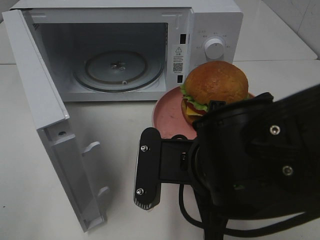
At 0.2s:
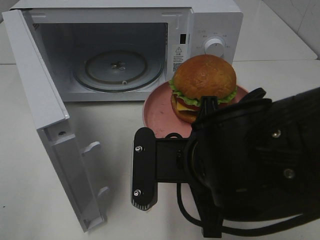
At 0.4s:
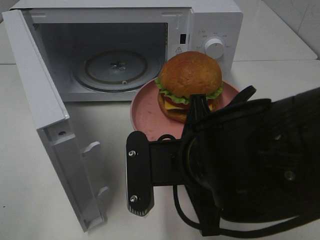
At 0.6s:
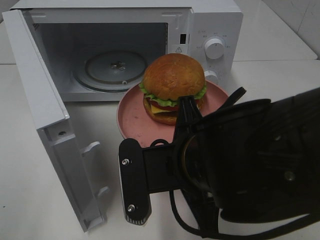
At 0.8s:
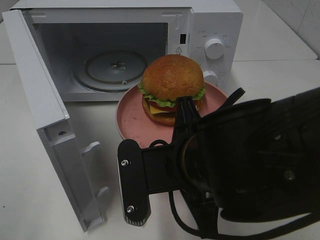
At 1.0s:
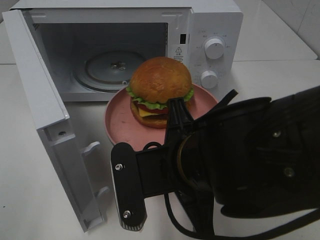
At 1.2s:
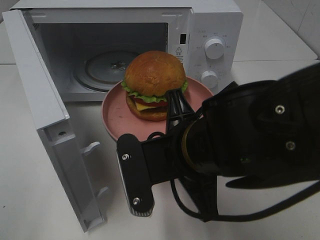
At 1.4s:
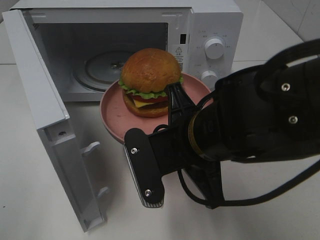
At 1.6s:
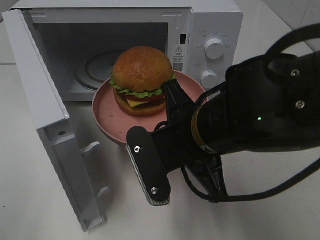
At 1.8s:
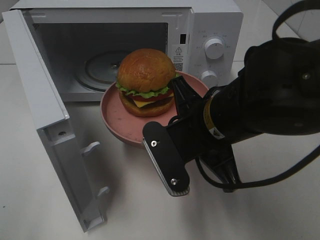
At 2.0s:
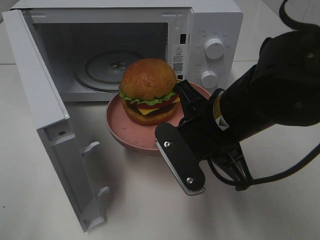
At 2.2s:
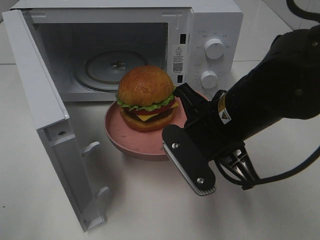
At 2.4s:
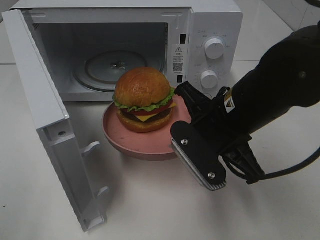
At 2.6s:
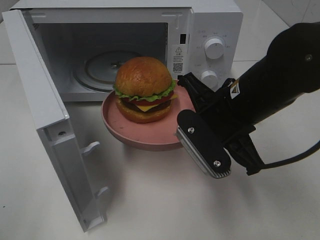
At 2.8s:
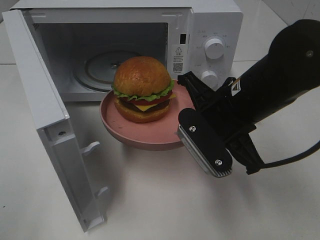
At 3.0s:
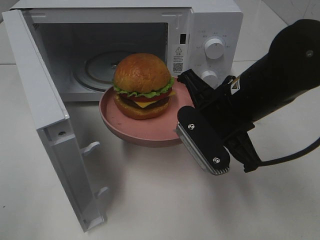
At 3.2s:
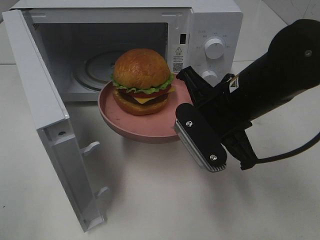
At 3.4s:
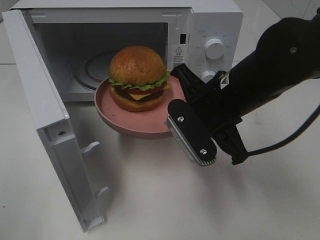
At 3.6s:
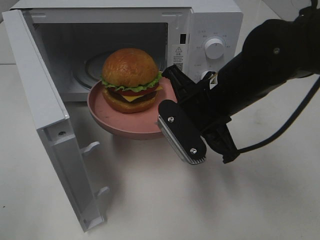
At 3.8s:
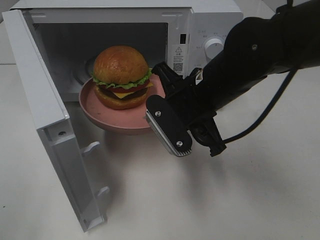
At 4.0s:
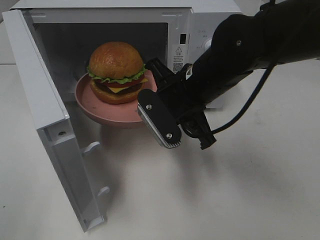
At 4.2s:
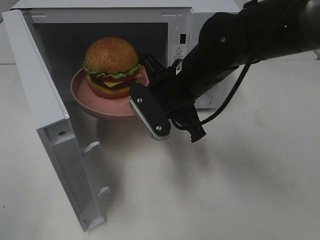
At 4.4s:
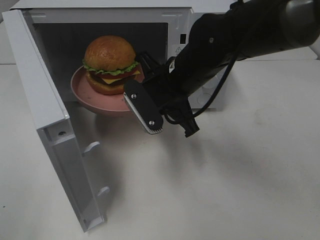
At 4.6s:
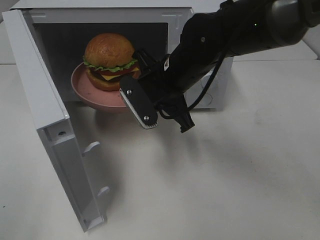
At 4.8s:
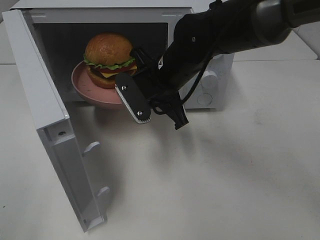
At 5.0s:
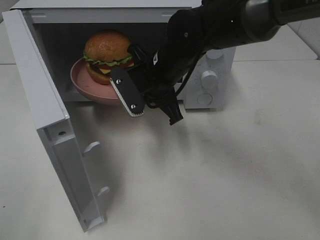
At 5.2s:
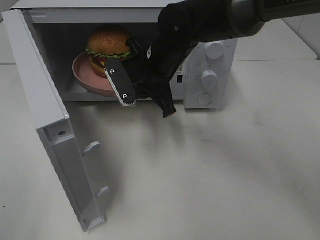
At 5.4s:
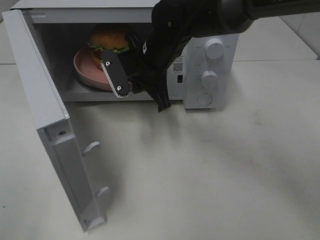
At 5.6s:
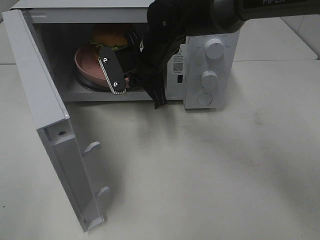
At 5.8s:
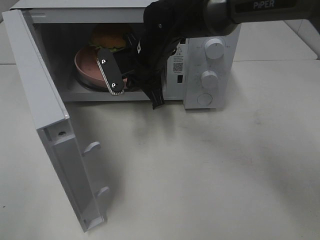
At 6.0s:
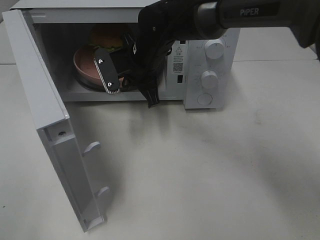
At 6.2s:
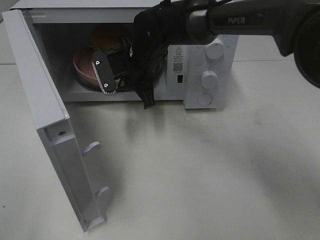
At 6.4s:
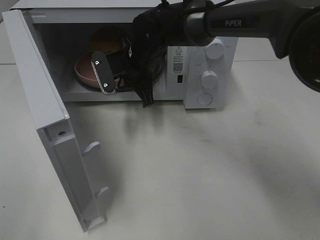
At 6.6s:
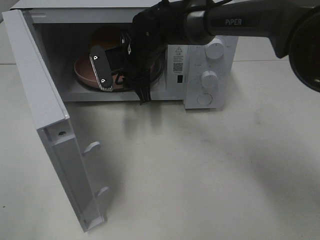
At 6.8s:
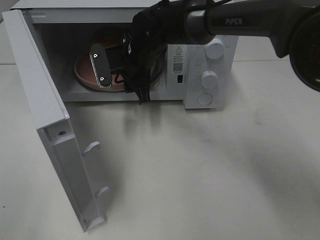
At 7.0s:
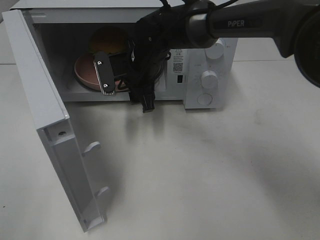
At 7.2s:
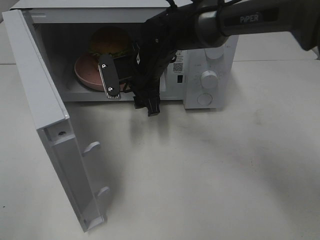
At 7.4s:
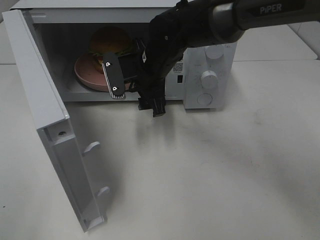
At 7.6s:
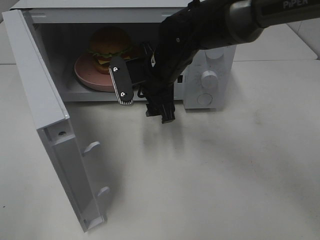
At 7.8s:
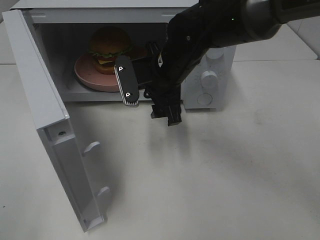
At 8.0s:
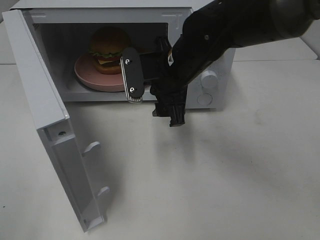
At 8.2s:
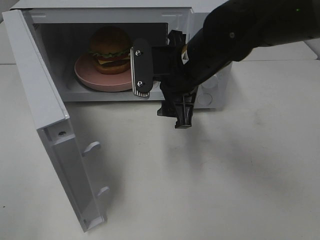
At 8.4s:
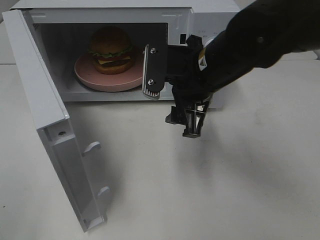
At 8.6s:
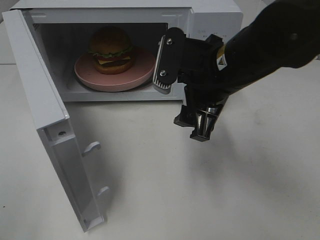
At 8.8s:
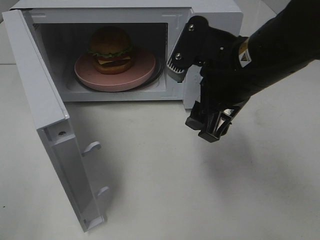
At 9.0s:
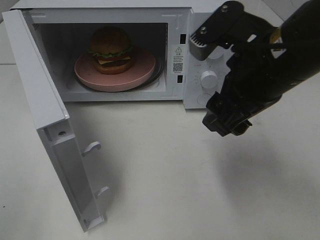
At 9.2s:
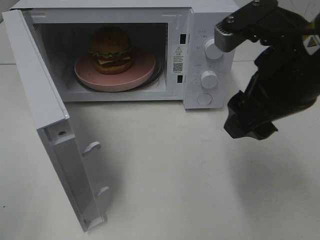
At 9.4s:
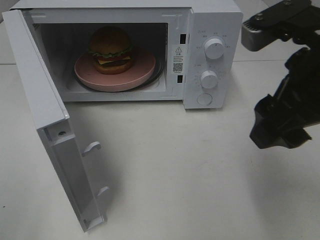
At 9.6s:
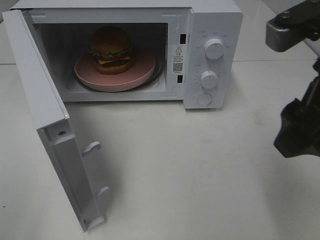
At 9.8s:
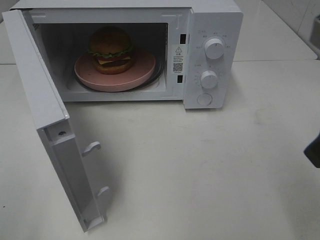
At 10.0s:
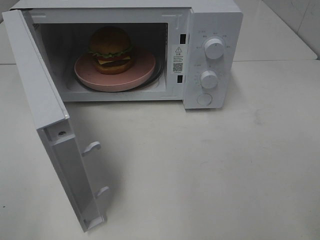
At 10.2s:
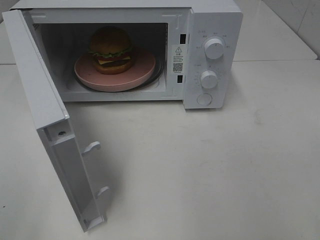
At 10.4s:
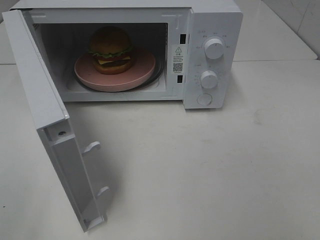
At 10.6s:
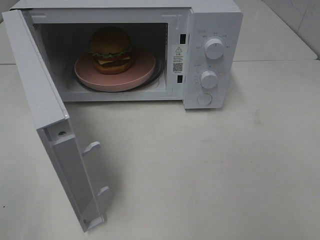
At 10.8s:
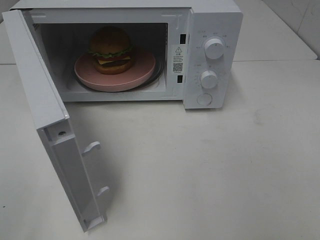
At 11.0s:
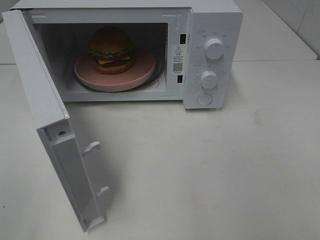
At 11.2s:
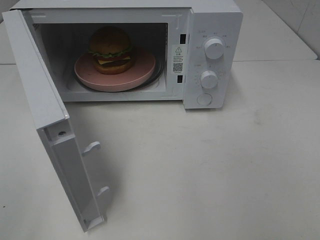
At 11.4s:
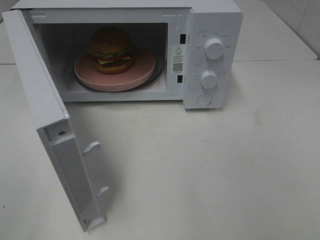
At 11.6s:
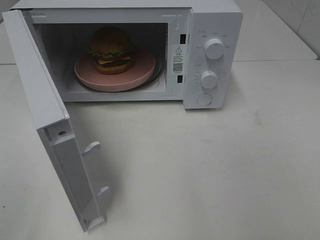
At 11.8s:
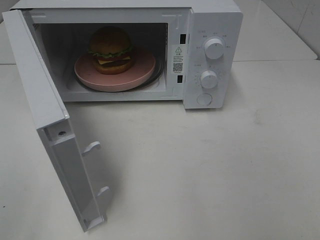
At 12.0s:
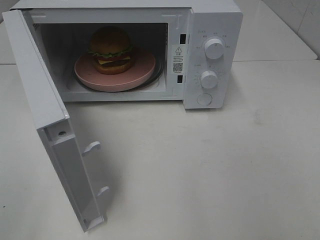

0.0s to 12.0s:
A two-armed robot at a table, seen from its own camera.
Task of the whole recording: Heat the burger.
Step, 0.0s to 6.8s: Right hand: place the plate in the microwave.
1.6s to 3.0s: The right gripper shifts approximately 5 cm forward and to the right.
3.0s to 4.4s: The right gripper travels forward and to the left by approximately 10 cm.
4.4s to 6.0s: The right gripper shifts roughly 10 cm forward and to the left.
6.0s to 7.6s: The right gripper moves approximately 5 cm, and opens up.
7.6s to 9.0s: The right gripper heads backward, to the right and upward, covering approximately 20 cm.
9.0s to 10.4s: The right gripper heads backward and to the right, covering approximately 25 cm.

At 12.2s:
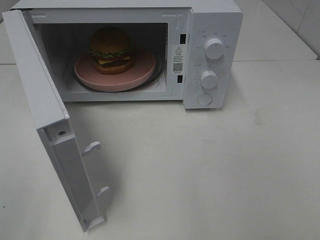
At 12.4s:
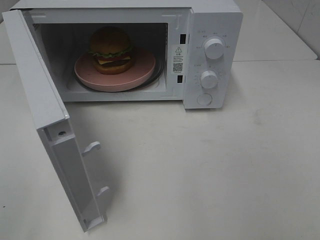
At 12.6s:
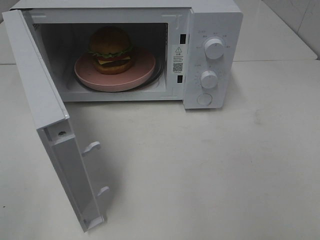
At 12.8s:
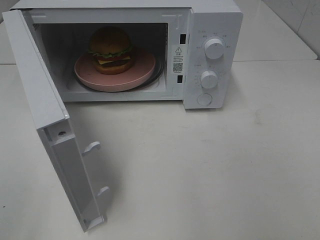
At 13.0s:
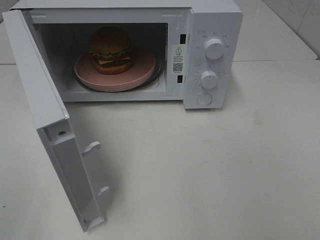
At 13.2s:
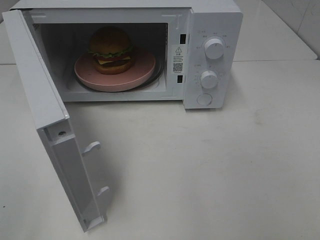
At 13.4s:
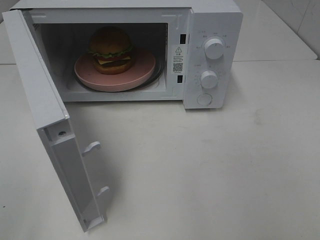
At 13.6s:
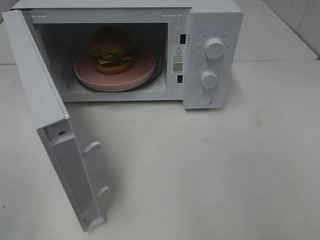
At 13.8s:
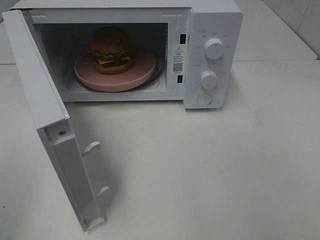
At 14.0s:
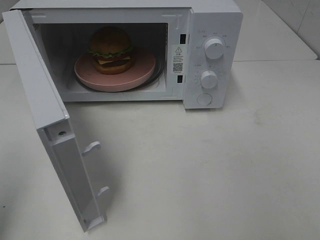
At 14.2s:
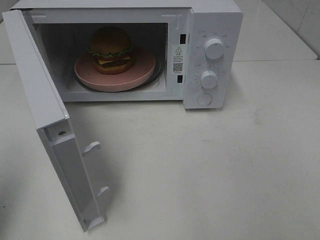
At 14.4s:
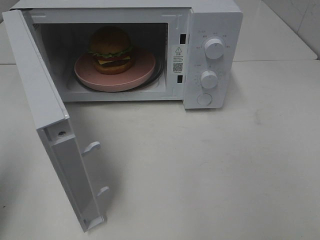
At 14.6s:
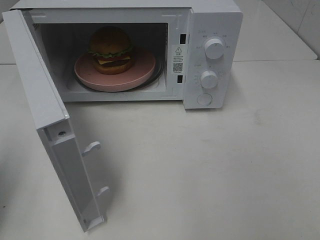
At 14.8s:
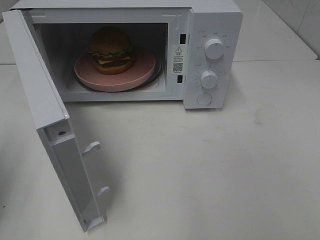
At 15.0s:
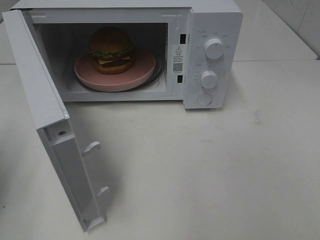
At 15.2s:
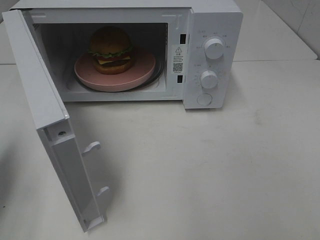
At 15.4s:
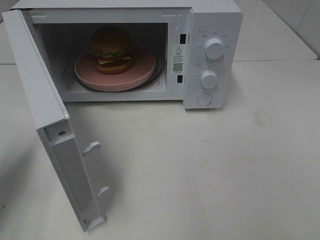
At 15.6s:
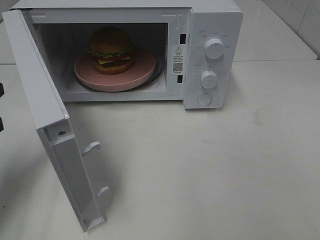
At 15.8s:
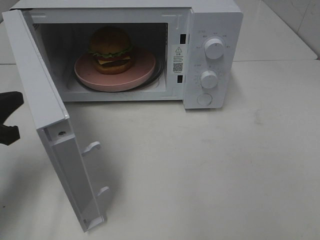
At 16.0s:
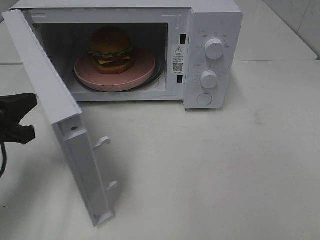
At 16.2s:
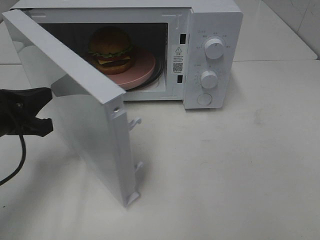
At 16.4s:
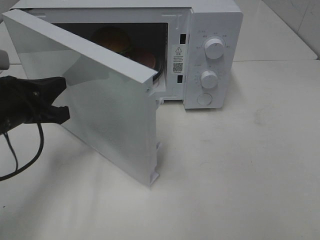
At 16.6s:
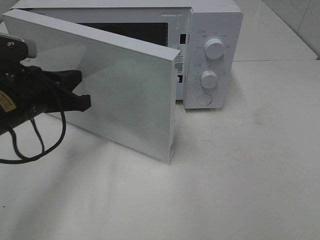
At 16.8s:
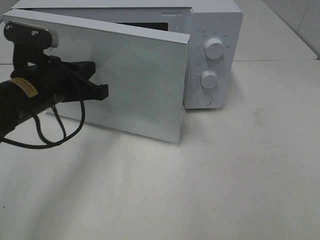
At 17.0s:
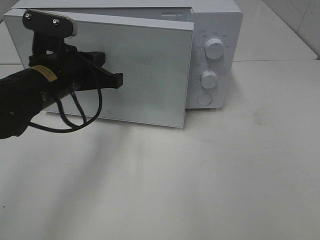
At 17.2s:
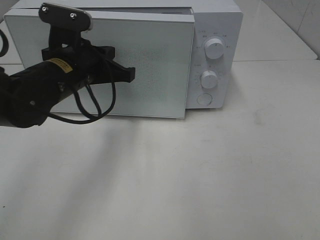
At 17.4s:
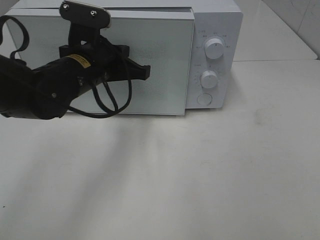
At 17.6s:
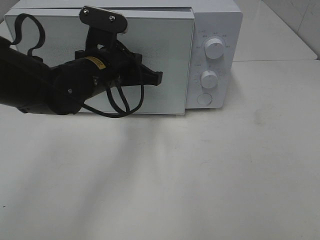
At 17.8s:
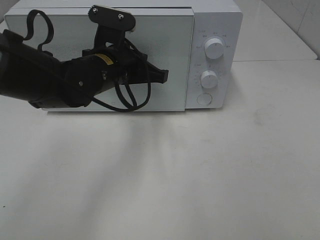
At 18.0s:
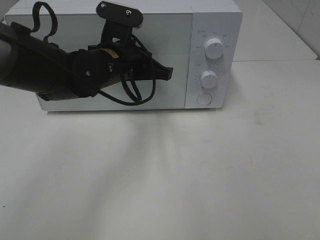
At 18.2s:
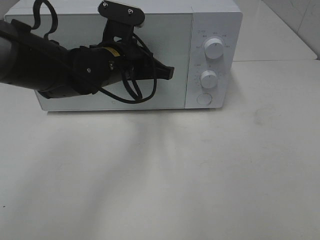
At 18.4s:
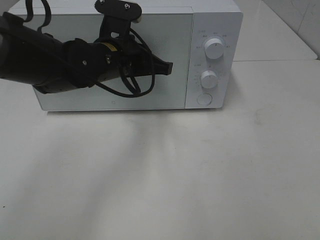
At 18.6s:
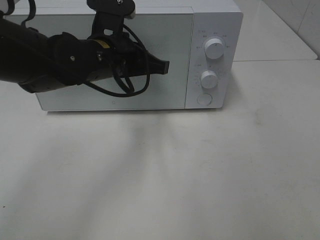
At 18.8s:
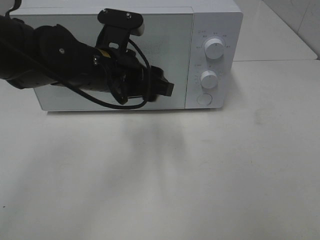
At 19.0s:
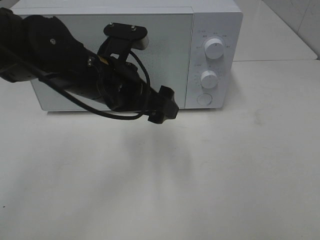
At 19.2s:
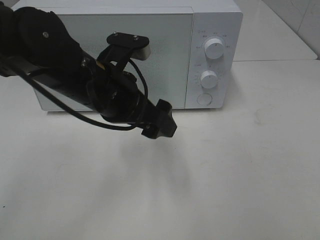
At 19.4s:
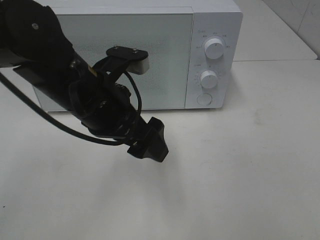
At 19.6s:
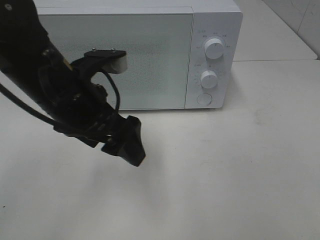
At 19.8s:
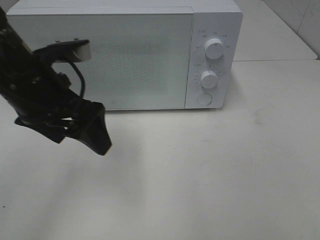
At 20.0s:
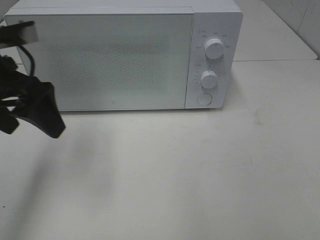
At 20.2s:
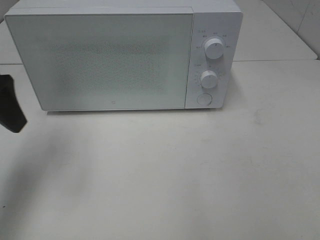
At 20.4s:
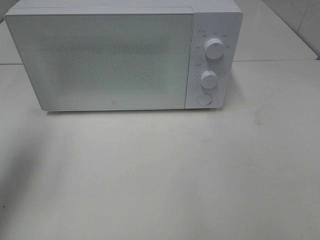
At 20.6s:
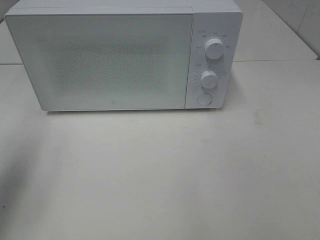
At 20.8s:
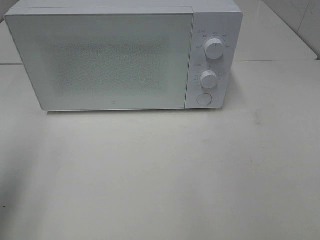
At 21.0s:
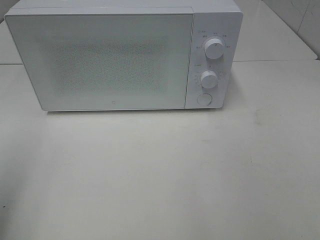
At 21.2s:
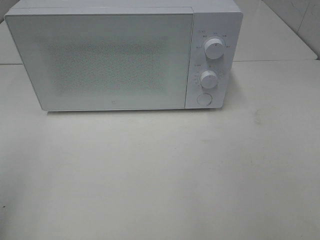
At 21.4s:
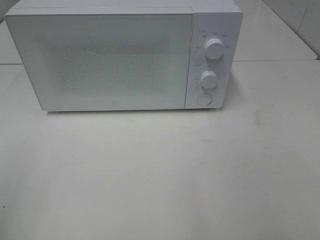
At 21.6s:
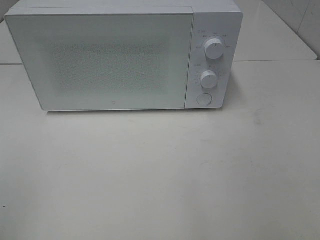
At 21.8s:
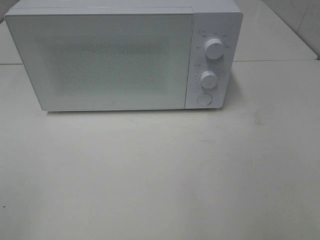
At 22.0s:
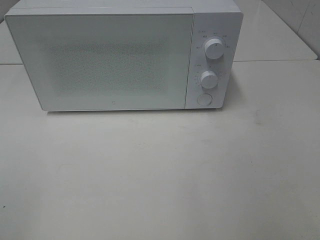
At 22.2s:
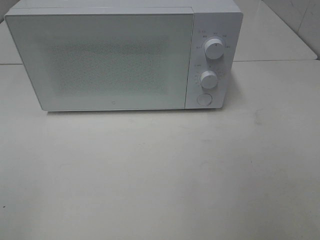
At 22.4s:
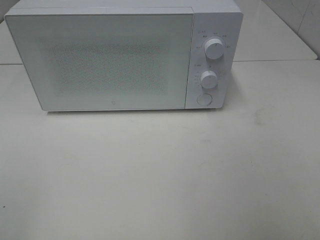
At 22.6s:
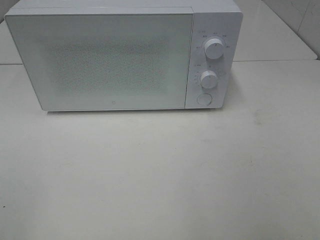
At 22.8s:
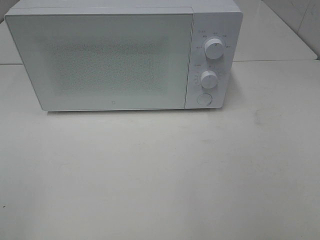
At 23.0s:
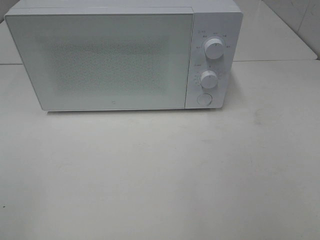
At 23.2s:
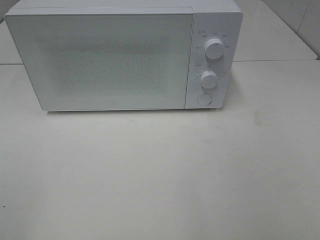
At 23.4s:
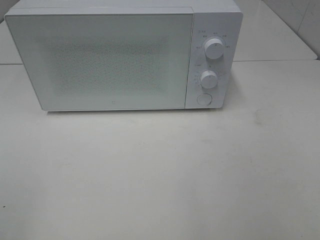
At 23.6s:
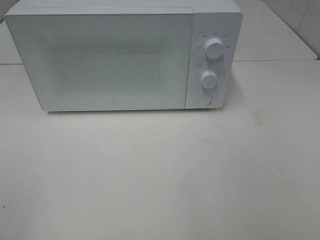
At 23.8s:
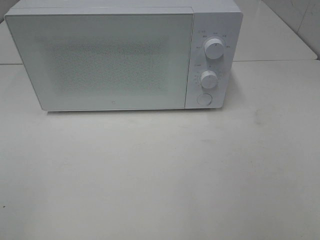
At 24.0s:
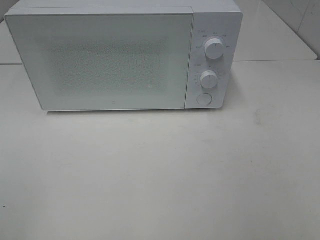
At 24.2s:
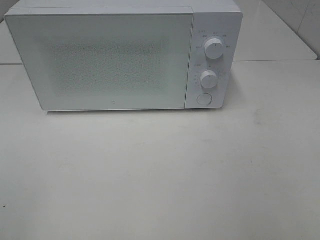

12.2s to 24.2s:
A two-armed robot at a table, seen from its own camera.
Task of the whole recording: Heat the burger.
Step, 12.2s to 18.8s: Left hand: close the microwave door.
13.8s to 15.2s: The left gripper moves forward and downward, about 15 cm, and closes its fingers.
15.2s to 16.6s: The left gripper heads to the right and forward, covering roughly 15 cm.
16.6s to 18.2s: The left gripper travels to the right and forward by about 15 cm.
18.2s to 19.8s: The left gripper travels to the left, backward and upward by some 15 cm, and opens its fingers.
19.8s to 21.2s: The left gripper travels backward and to the left by about 25 cm.
